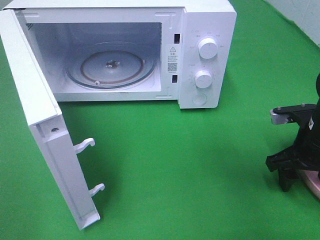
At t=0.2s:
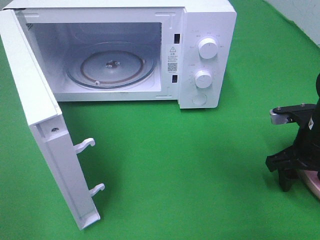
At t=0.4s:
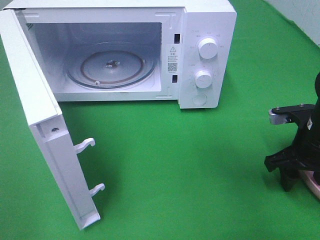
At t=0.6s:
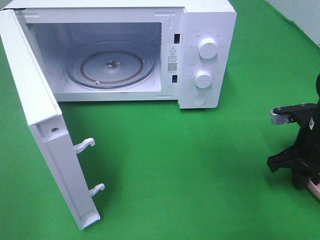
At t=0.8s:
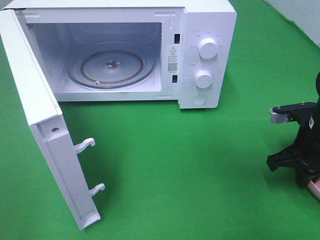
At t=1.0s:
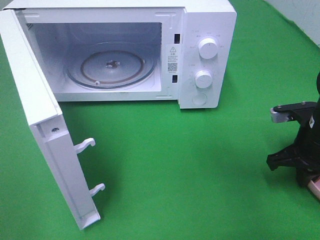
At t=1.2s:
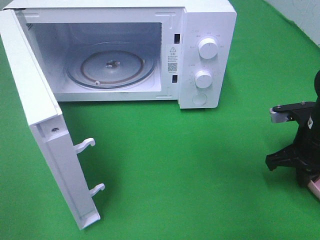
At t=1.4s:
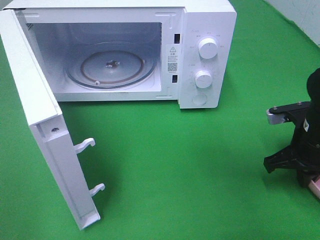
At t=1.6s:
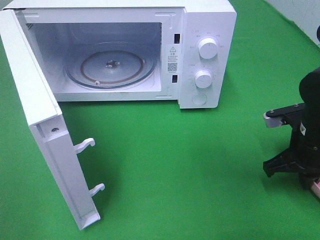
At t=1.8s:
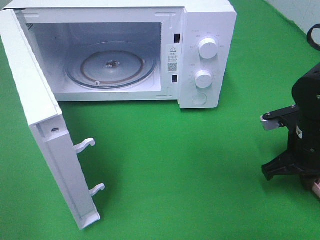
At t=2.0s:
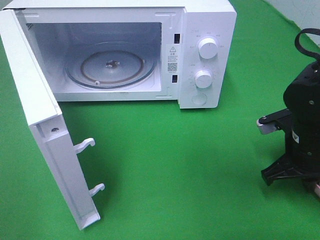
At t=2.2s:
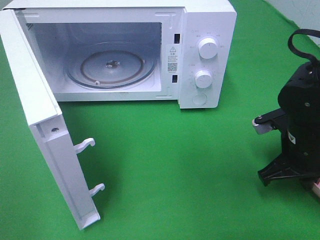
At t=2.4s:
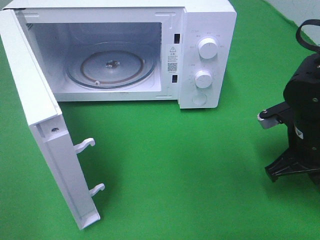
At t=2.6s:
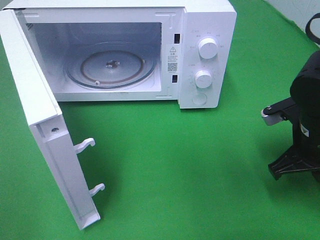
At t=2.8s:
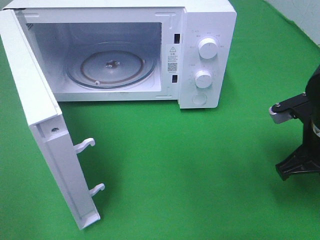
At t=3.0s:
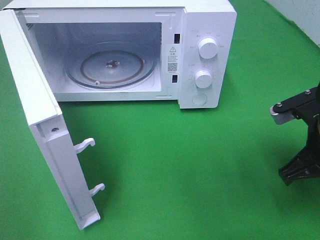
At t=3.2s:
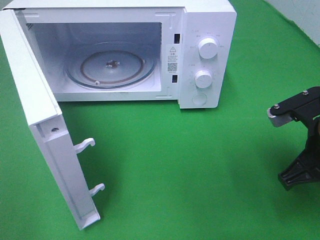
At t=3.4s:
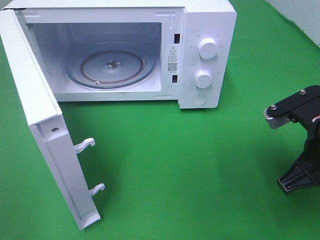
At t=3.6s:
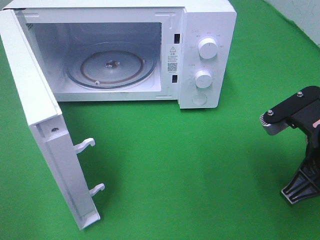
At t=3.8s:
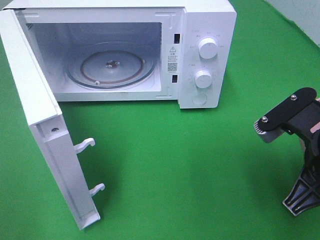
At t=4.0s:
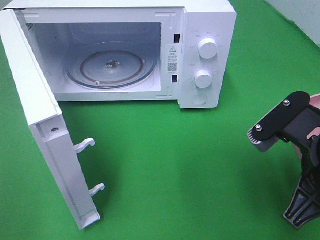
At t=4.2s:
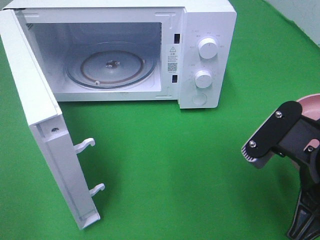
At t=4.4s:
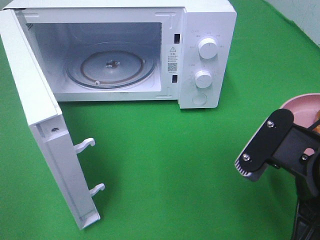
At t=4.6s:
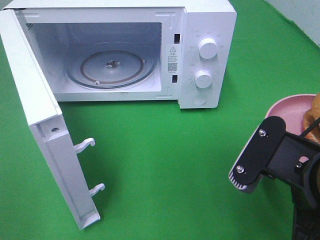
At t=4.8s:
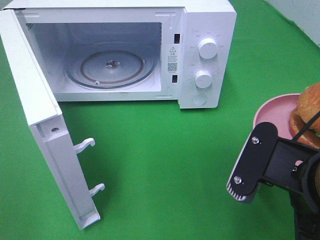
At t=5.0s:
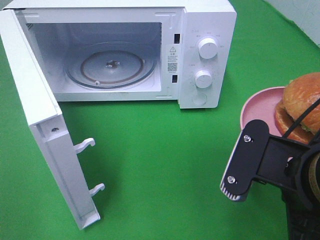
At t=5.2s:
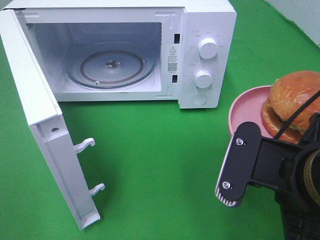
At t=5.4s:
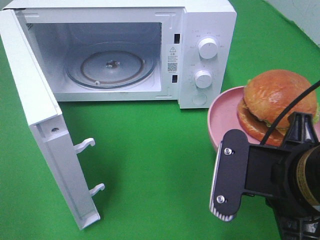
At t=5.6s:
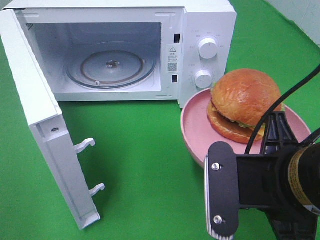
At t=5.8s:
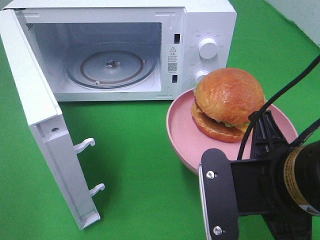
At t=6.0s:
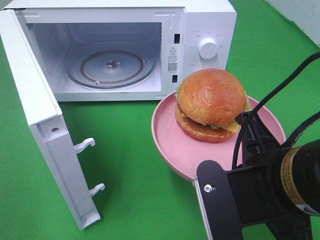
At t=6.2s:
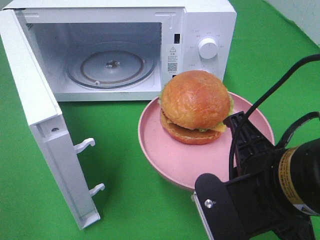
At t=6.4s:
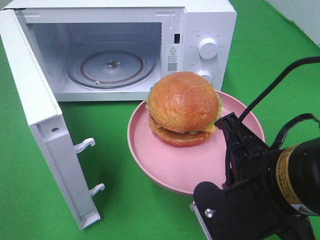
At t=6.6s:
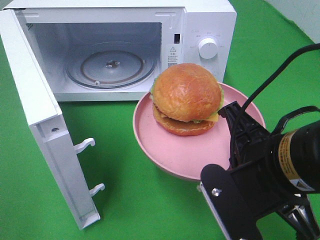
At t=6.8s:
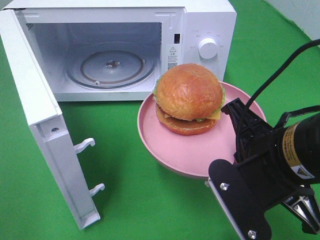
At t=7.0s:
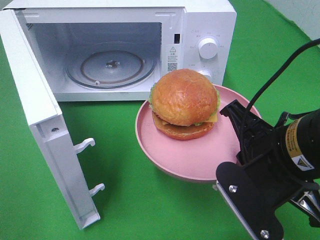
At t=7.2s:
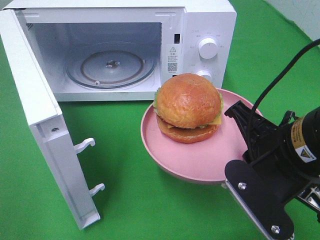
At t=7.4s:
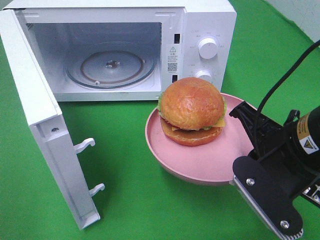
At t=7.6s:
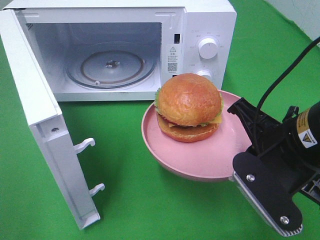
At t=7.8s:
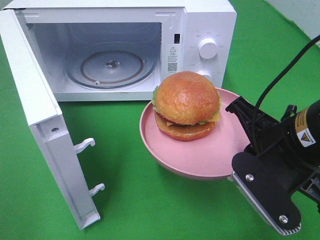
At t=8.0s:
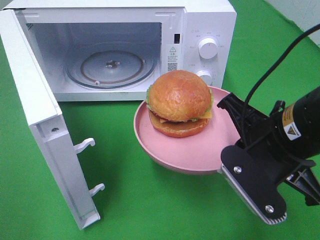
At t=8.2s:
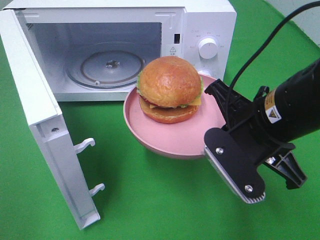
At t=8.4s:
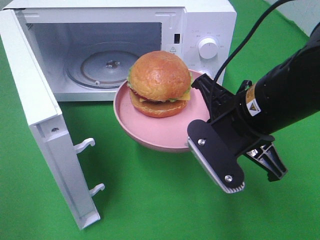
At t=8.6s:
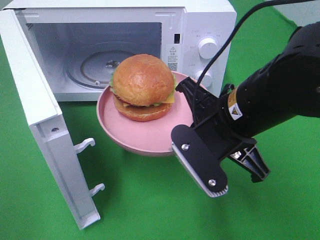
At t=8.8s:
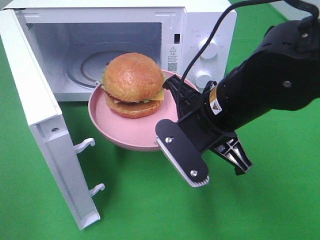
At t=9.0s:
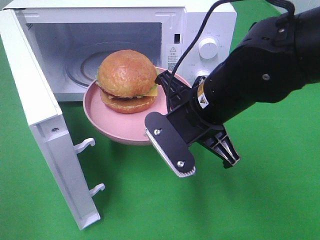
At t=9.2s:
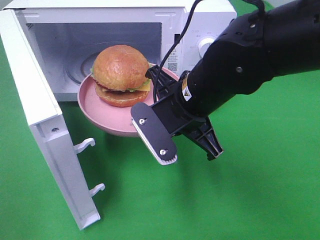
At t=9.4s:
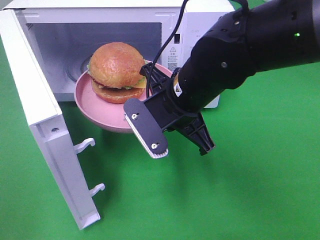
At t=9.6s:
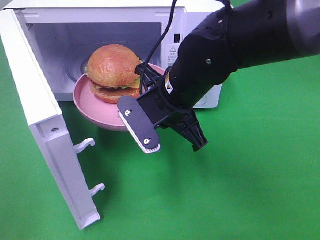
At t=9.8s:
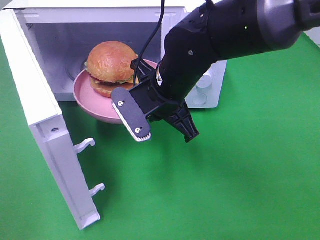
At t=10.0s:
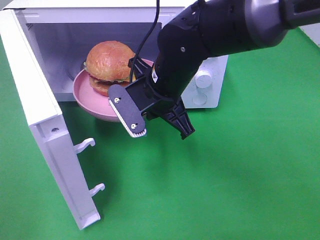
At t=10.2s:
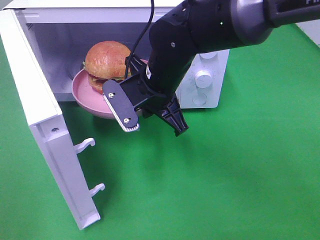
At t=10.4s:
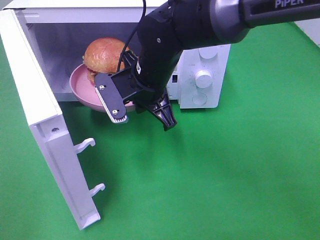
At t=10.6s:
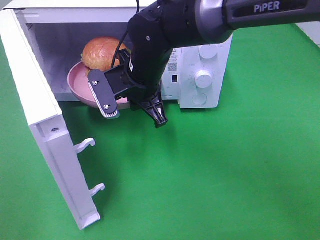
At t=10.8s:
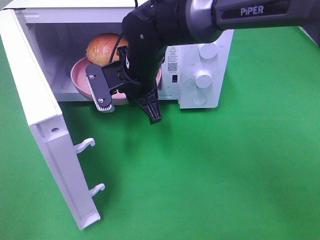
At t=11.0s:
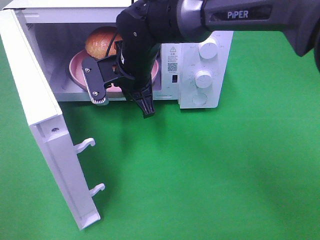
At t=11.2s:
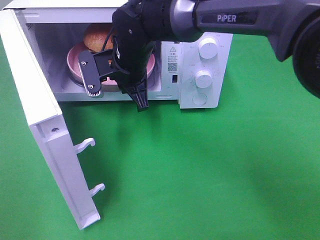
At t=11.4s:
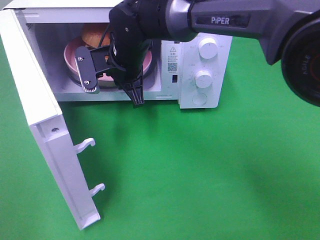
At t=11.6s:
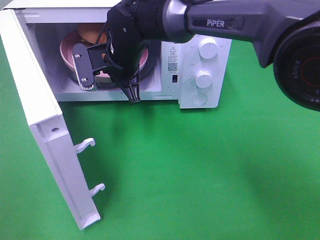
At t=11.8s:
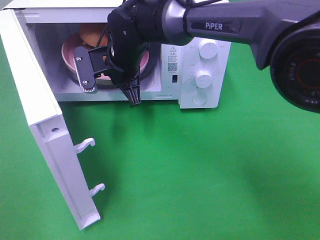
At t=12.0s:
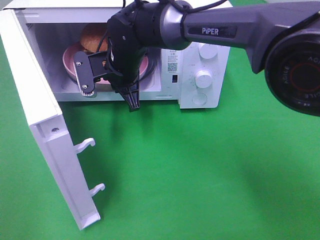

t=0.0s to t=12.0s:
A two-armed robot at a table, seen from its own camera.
Task of the whole recording: Heat the burger.
t=0.0s to t=1.6s: The right gripper closes its fingers.
t=1.6s to t=3.0s: The right gripper heads upward, covering about 5 cm.
t=3.0s to t=4.4s: The right gripper is displaced backward and to the left by approximately 10 cm.
t=6.0s to t=7.6s: The right gripper goes some 5 cm forward.
t=7.6s to t=9.0s: The right gripper is displaced to the left and forward by approximately 10 cm.
t=9.0s to t=10.4s: The right gripper travels forward and to the left by roughly 10 cm.
t=10.4s to t=12.0s: The right gripper is displaced forward by roughly 5 cm.

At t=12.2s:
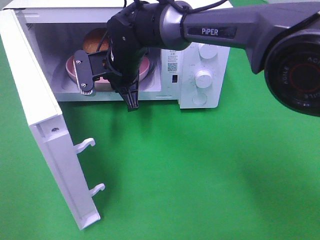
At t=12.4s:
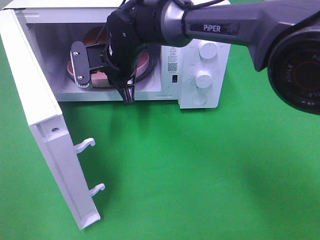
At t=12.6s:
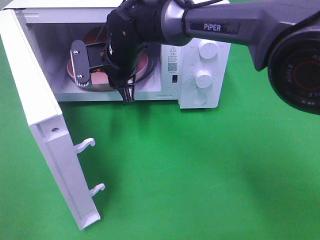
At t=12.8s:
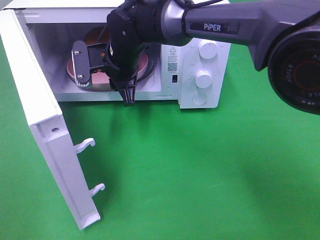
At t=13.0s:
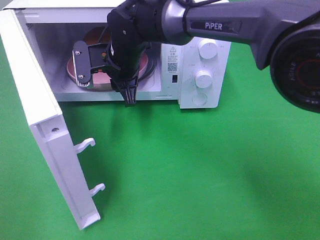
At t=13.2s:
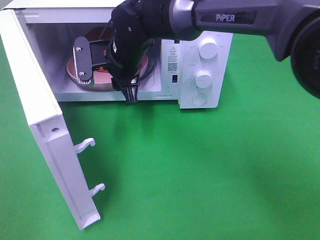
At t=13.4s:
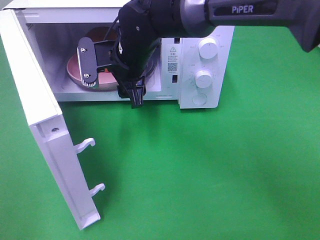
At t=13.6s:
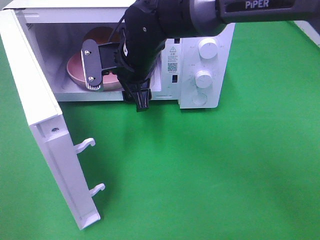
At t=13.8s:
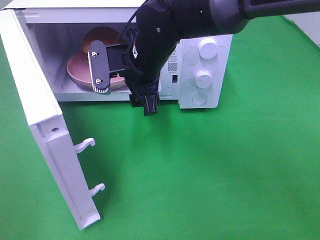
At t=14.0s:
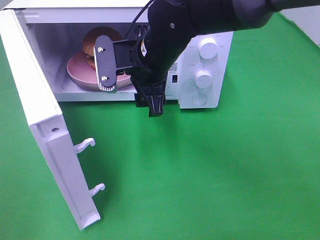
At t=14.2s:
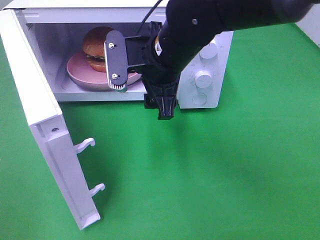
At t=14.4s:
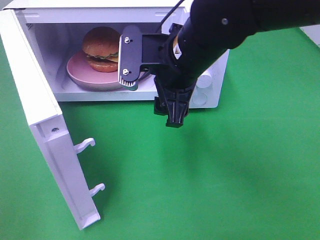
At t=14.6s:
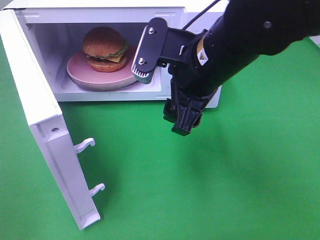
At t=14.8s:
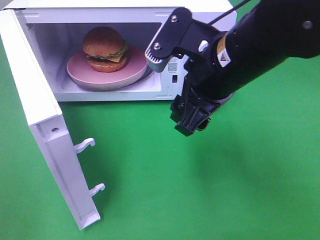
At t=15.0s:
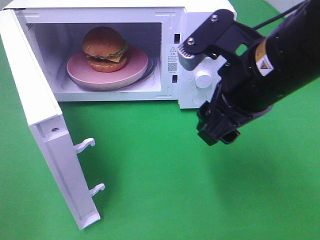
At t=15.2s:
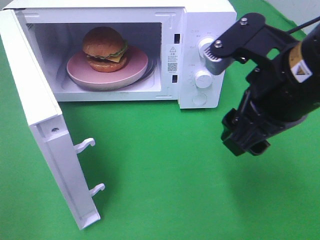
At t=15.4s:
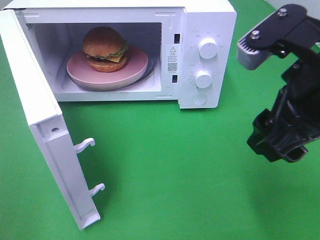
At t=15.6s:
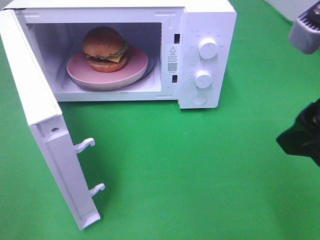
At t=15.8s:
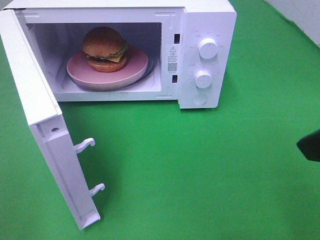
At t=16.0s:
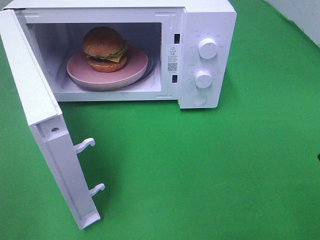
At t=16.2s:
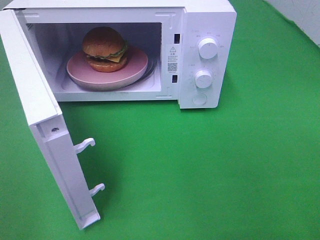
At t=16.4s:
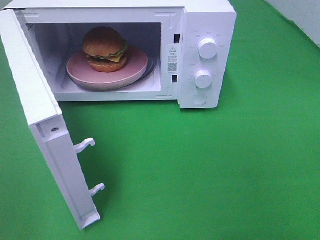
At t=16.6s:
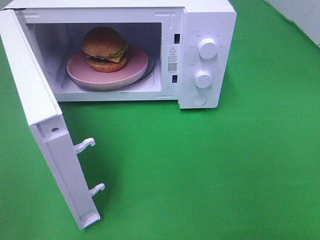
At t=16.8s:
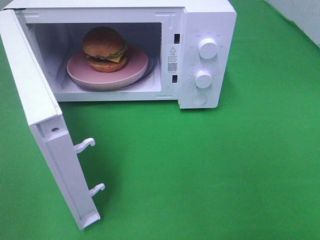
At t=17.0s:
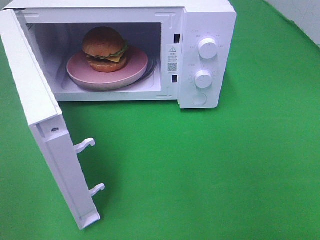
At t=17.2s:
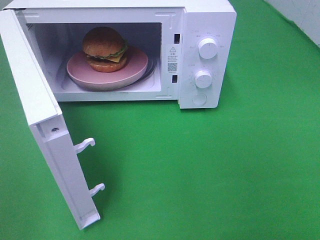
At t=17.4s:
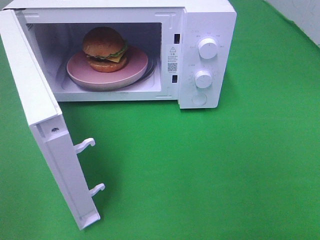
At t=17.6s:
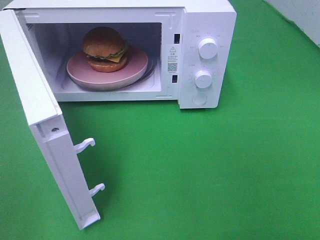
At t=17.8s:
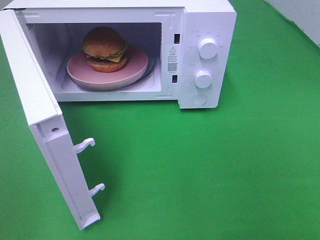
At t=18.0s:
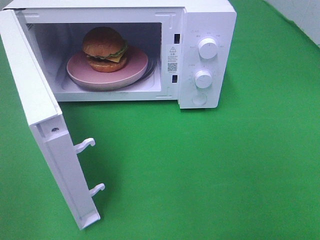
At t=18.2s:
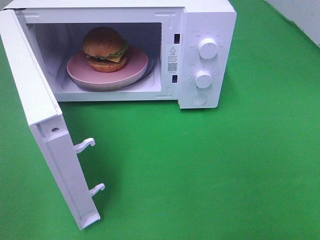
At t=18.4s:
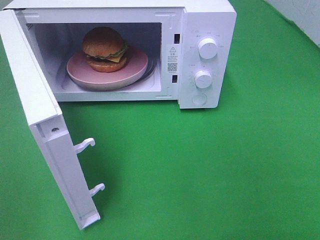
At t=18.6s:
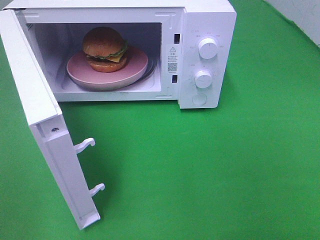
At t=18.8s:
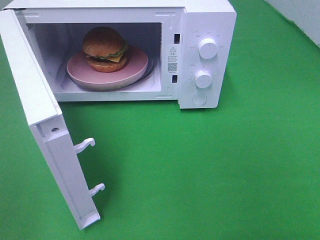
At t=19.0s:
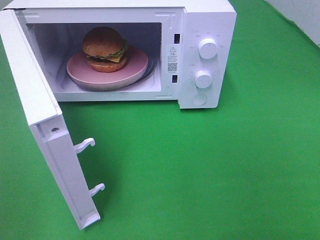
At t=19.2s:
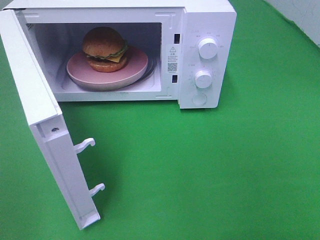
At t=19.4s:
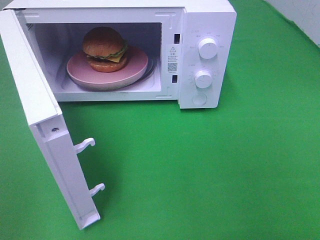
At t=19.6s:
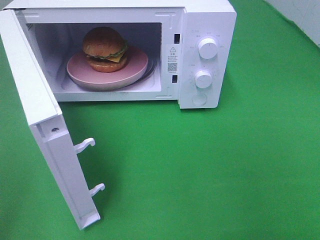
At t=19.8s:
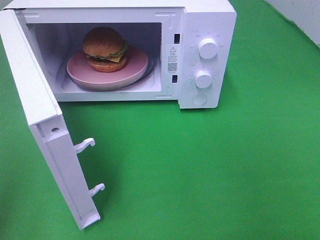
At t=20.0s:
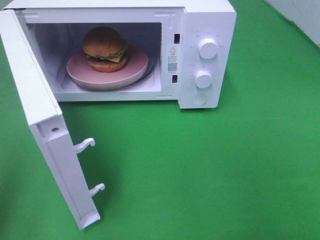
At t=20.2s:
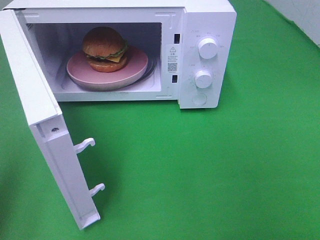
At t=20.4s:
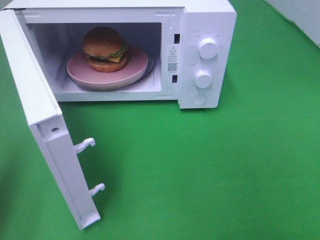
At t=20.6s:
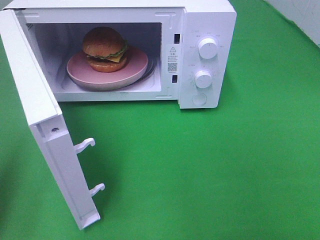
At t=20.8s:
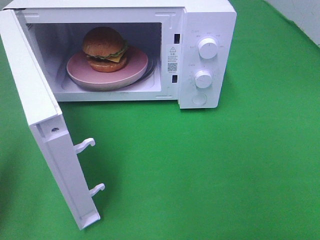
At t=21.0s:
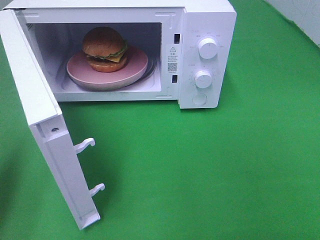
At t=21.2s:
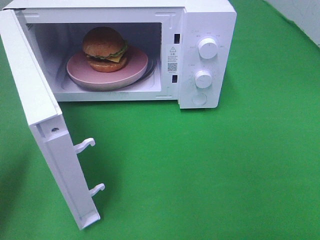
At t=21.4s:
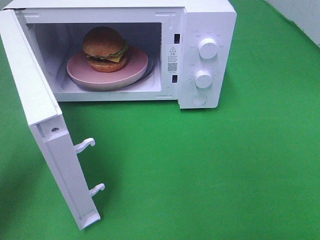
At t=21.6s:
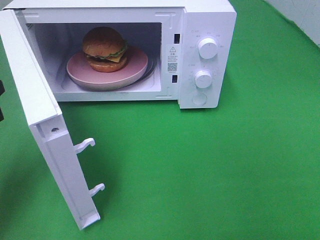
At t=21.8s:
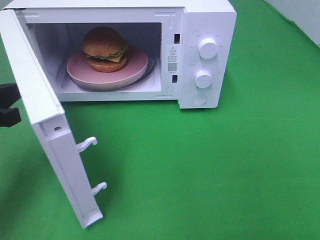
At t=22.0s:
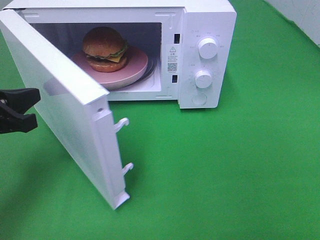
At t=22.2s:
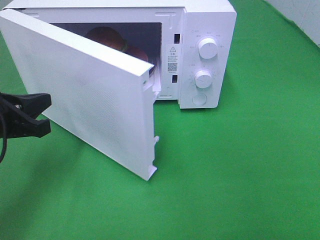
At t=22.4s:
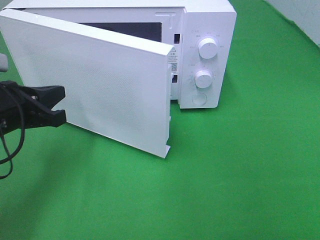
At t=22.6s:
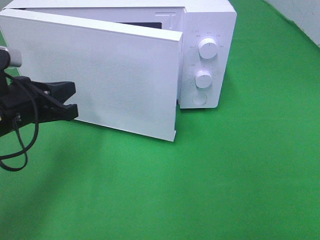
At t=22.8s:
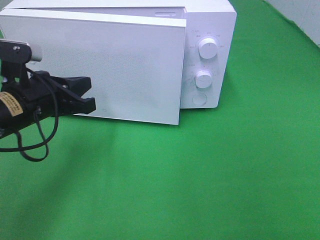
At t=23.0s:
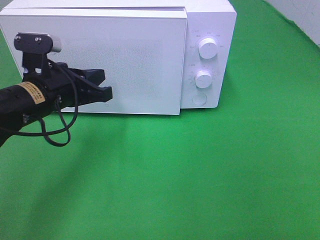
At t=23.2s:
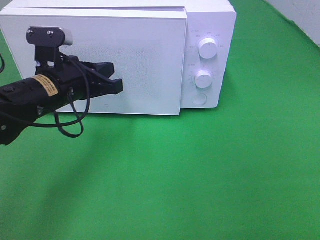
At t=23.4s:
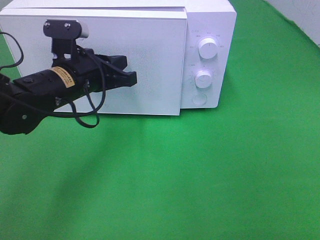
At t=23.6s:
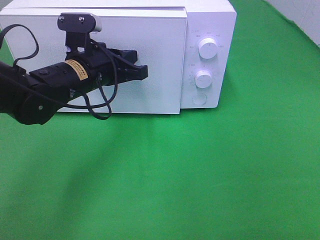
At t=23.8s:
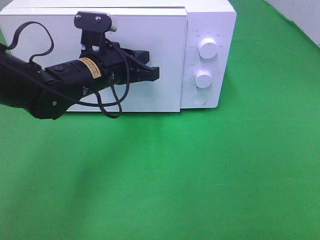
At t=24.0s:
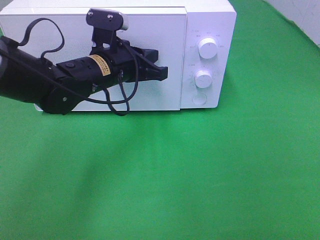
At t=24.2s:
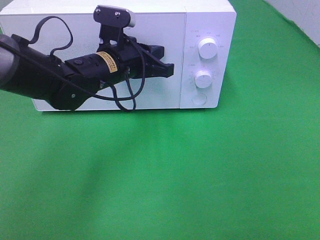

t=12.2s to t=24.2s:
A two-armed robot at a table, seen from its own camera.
Task of the whole recording: Heat the burger.
t=12.2s to t=13.8s: The right gripper travels backward by some 5 cm, and opens up.
t=13.8s to t=15.2s: The right gripper travels backward, to the right and upward by about 25 cm.
t=15.2s to t=16.6s: The right gripper heads to the right and backward, covering about 20 cm.
t=19.8s to t=21.2s: The left gripper shifts approximately 15 cm forward and downward.
t=21.2s to t=22.6s: The left gripper heads to the right and forward, covering some 15 cm.
t=22.6s to t=24.2s: The left gripper goes about 15 cm to the right and forward.
